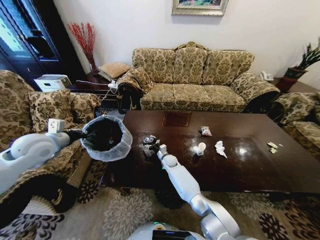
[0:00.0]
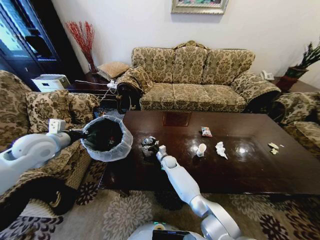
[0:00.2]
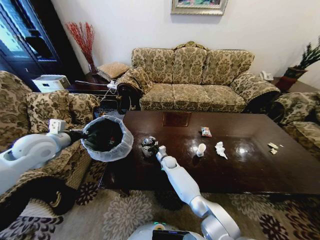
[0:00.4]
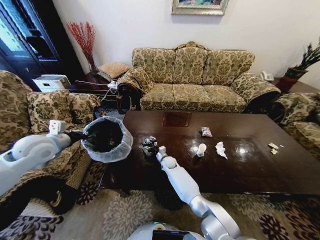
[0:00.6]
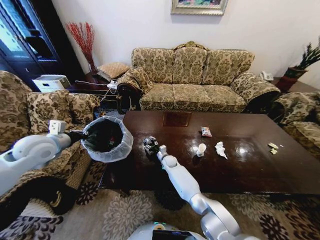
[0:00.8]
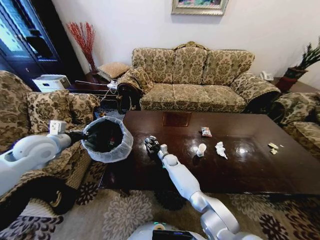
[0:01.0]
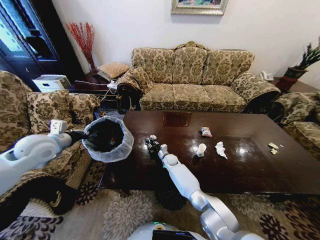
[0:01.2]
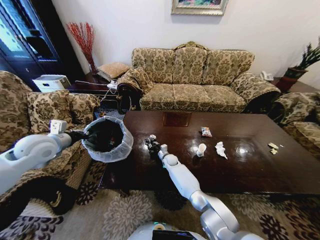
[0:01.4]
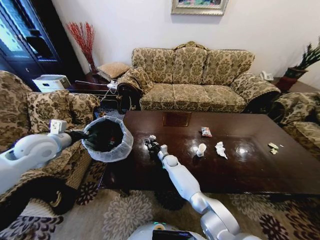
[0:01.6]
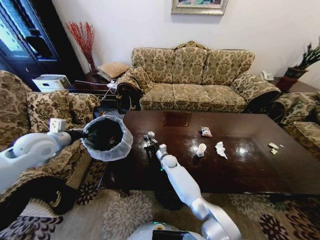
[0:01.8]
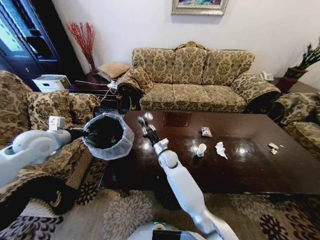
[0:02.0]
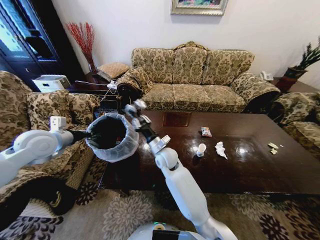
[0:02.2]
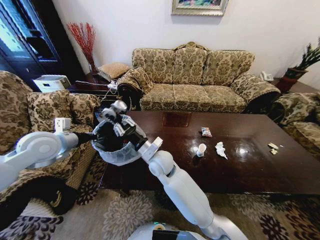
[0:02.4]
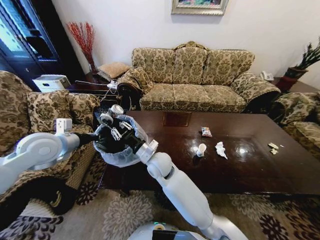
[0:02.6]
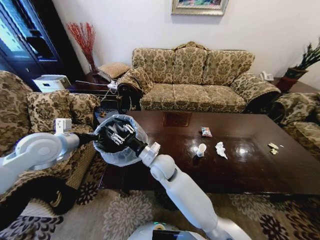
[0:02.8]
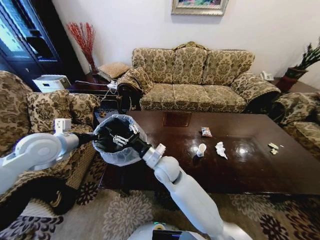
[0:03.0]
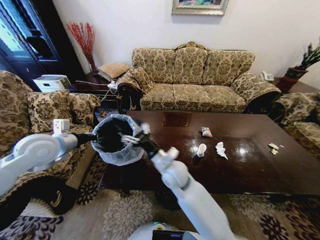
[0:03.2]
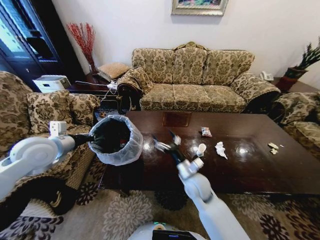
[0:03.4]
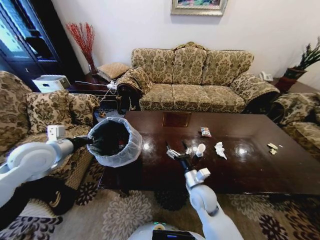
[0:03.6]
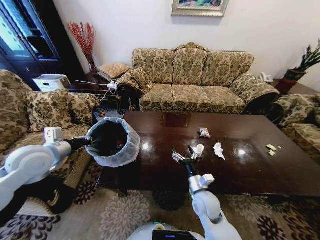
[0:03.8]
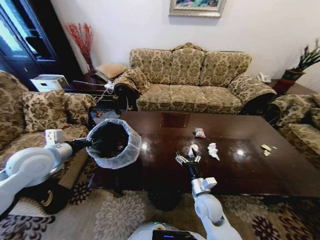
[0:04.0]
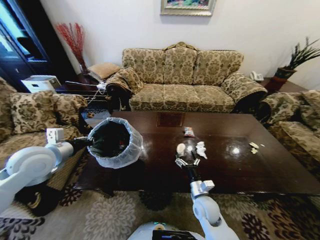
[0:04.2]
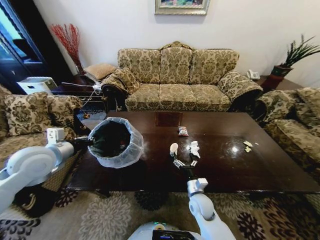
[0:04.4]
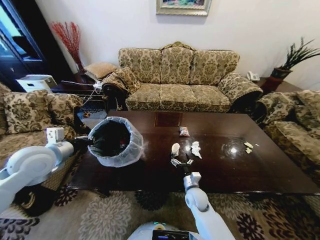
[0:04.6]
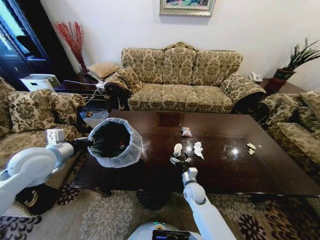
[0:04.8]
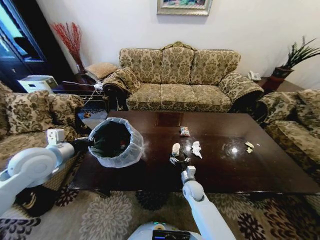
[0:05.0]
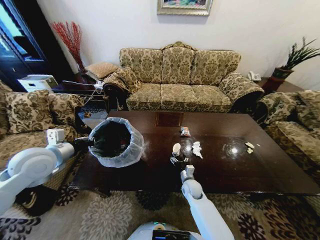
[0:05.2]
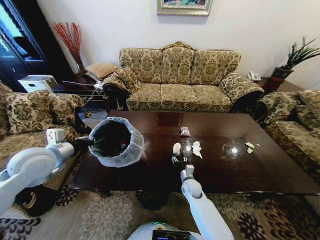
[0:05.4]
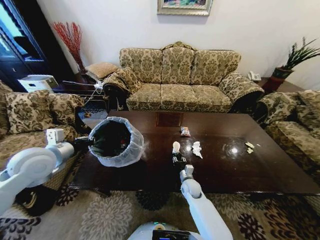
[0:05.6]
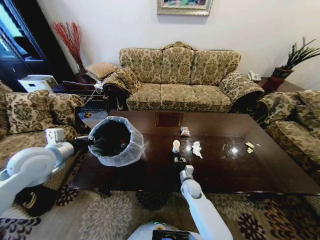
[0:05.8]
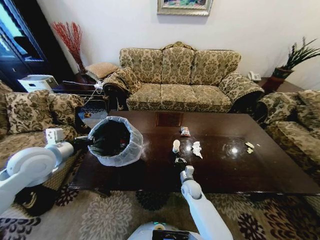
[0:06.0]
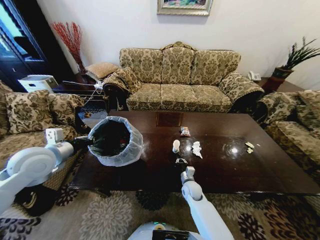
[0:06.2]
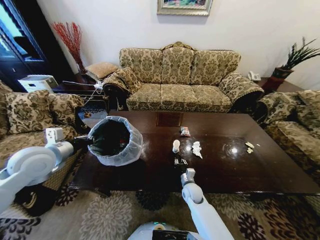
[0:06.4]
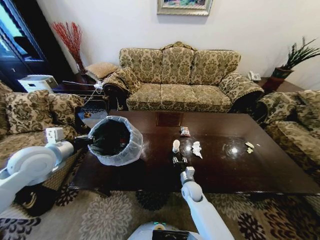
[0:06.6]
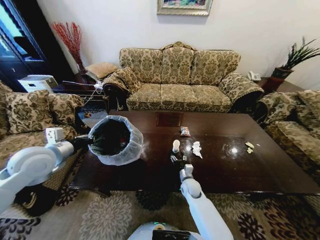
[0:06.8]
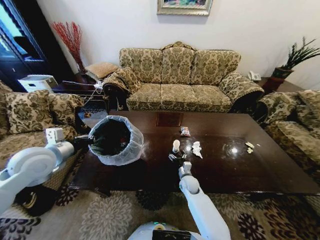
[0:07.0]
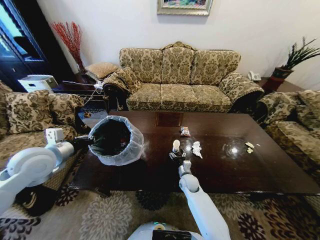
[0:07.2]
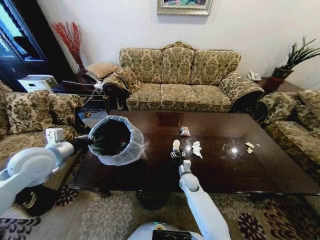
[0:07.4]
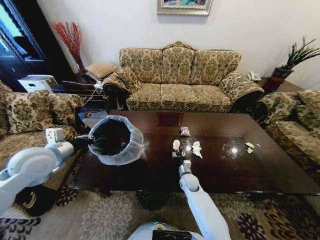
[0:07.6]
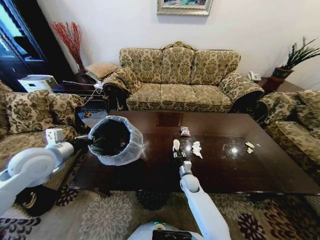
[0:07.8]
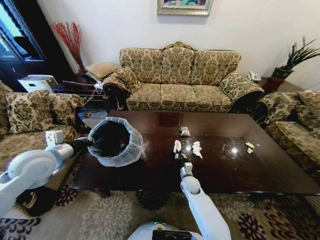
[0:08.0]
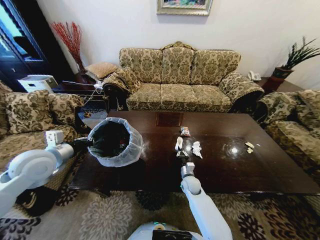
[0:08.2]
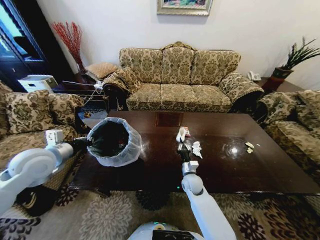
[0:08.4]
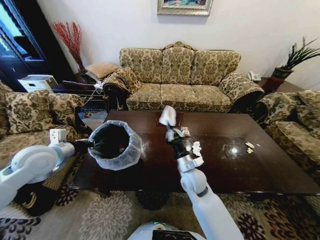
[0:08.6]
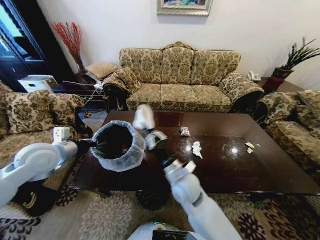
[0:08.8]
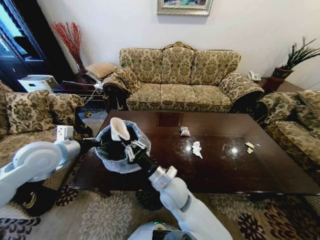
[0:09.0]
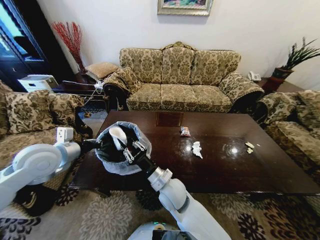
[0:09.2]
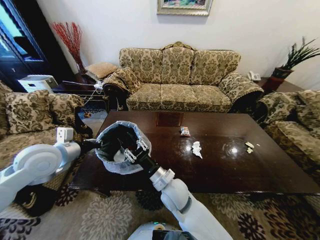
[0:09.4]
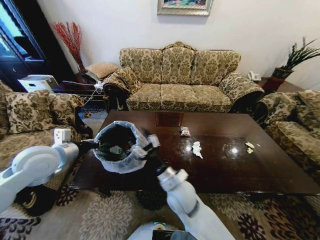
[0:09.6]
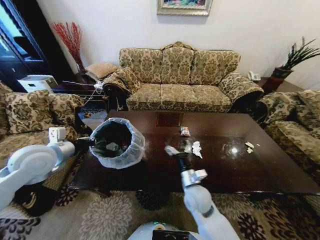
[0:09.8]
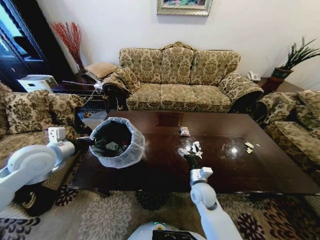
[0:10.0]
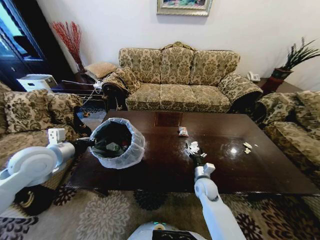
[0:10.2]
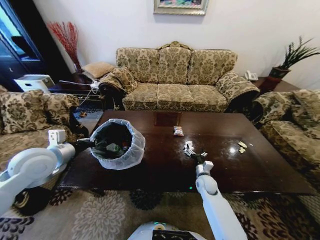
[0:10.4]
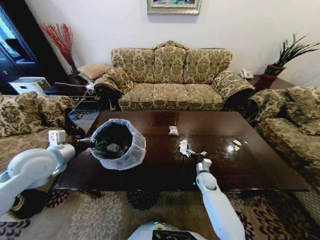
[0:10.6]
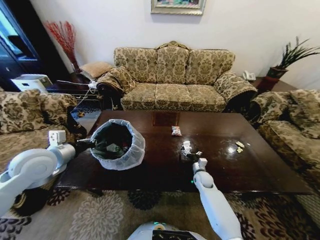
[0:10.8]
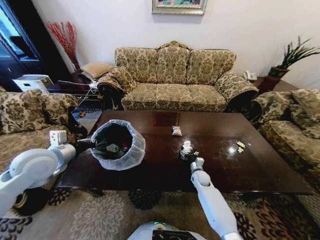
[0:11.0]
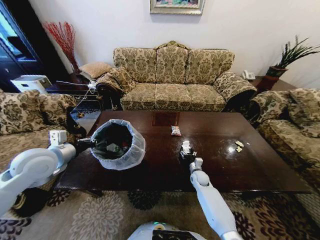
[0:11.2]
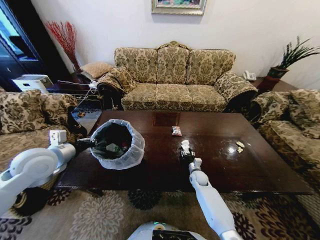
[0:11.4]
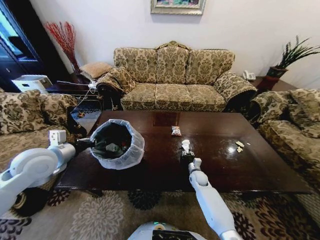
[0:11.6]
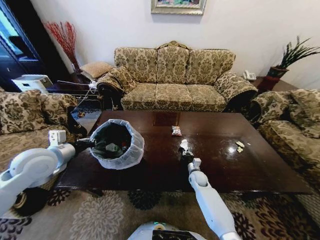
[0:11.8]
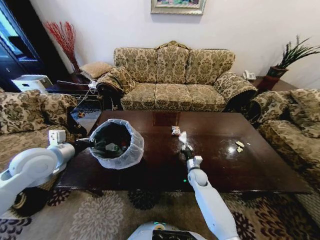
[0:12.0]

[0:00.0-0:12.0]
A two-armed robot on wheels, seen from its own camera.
Task of the whole recording: Move to the front of the table and place the trash on the table into the trash bin.
0:00.0 to 0:01.6: The right gripper closes.
0:01.6 to 0:03.0: The right gripper moves upward and backward, approximately 30 cm, and opens its fingers. Meanwhile the left gripper changes place by approximately 5 cm.
0:03.0 to 0:04.4: The right gripper is displaced downward, to the right and backward by approximately 25 cm, and opens up.
0:04.4 to 0:06.0: The right gripper shifts some 10 cm forward, and closes up.
0:06.0 to 0:07.6: The right gripper opens its fingers.
0:07.6 to 0:09.0: The right gripper moves upward, to the left and backward, approximately 25 cm, and closes up.
0:09.0 to 0:10.4: The right gripper goes about 30 cm to the right, downward and forward, and opens up.
0:10.4 to 0:12.0: The right gripper moves approximately 5 cm, and closes.

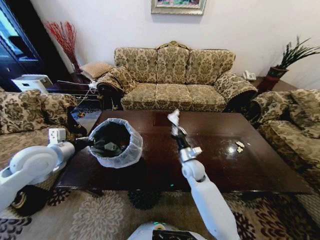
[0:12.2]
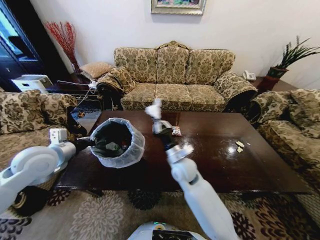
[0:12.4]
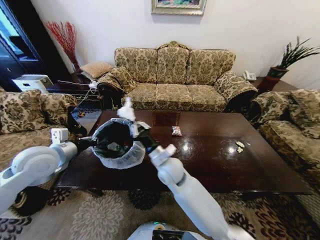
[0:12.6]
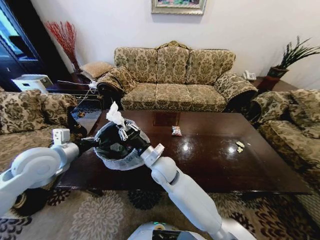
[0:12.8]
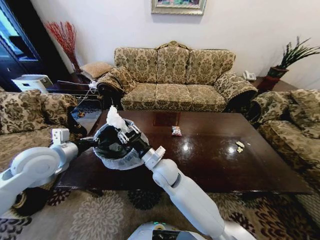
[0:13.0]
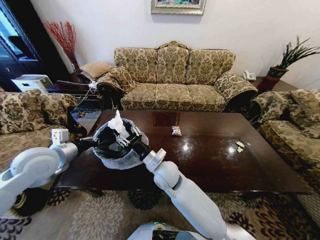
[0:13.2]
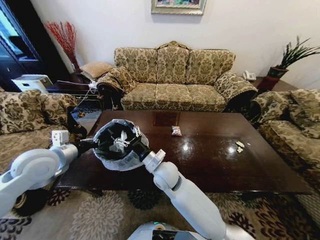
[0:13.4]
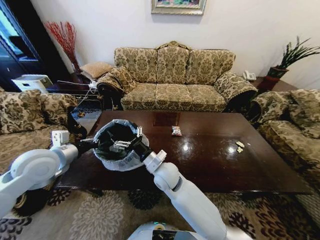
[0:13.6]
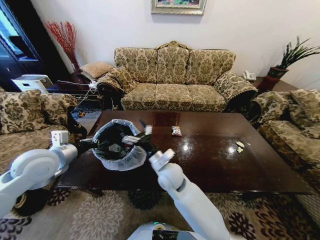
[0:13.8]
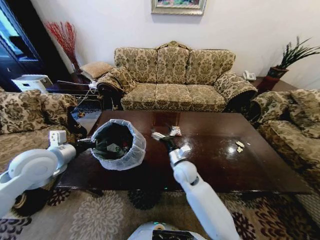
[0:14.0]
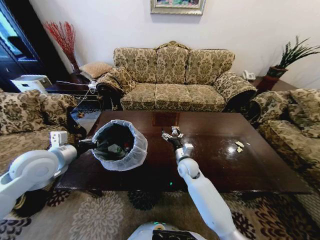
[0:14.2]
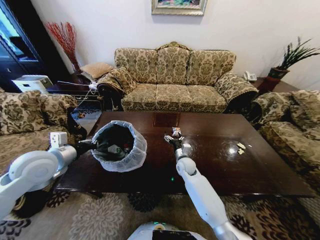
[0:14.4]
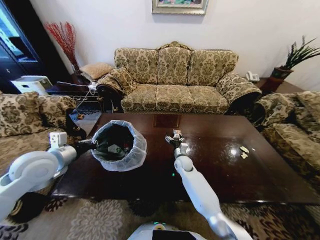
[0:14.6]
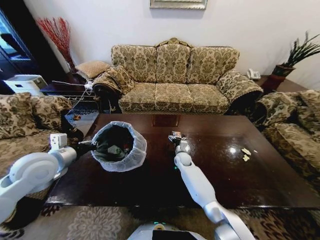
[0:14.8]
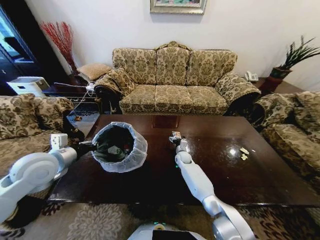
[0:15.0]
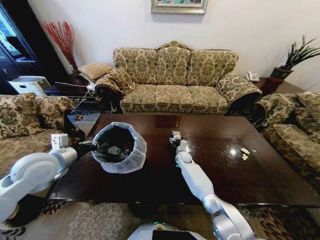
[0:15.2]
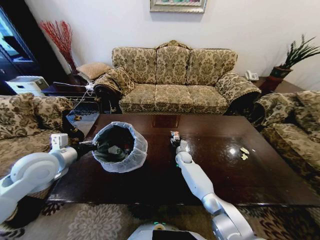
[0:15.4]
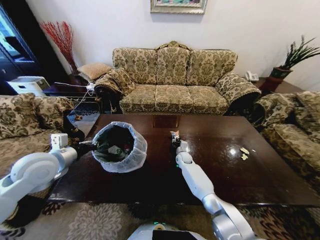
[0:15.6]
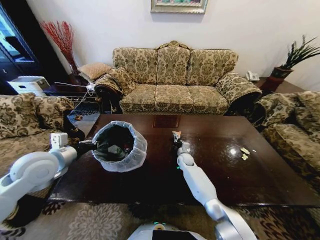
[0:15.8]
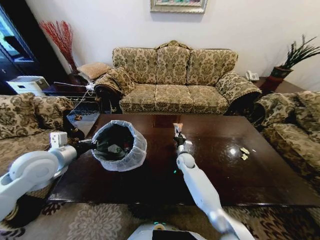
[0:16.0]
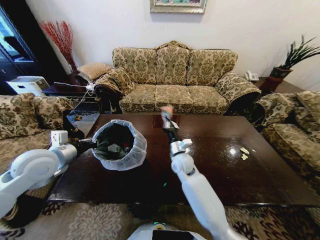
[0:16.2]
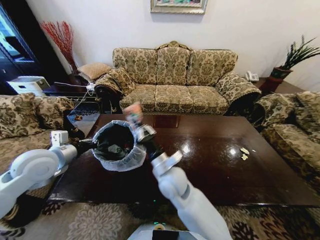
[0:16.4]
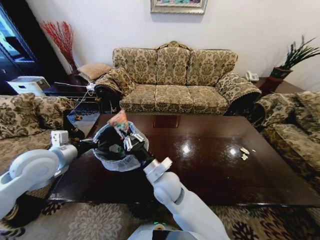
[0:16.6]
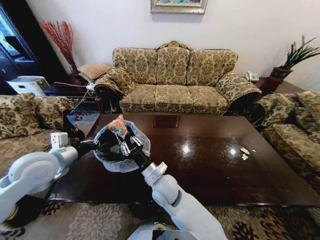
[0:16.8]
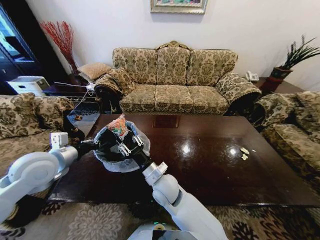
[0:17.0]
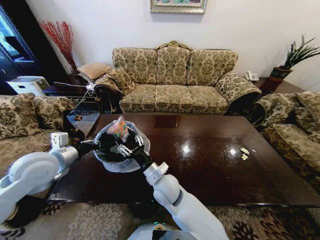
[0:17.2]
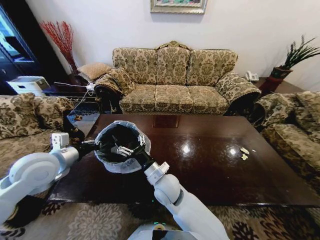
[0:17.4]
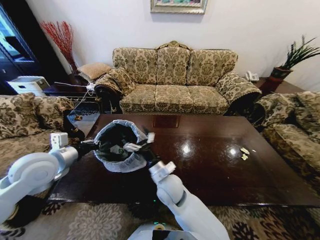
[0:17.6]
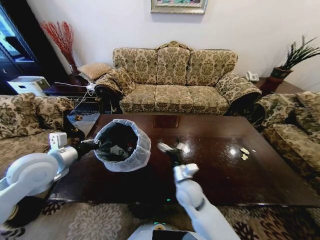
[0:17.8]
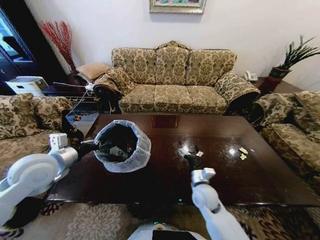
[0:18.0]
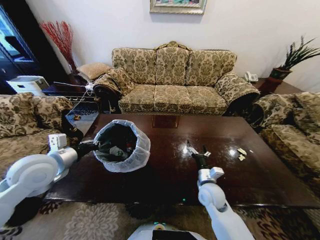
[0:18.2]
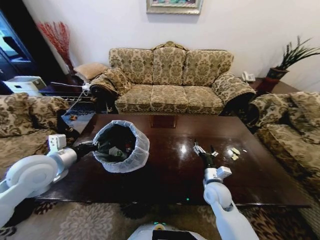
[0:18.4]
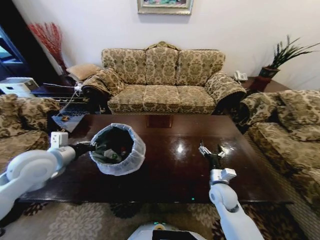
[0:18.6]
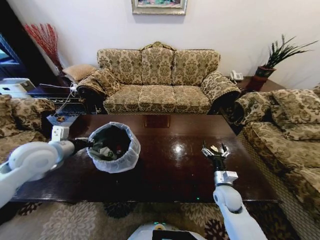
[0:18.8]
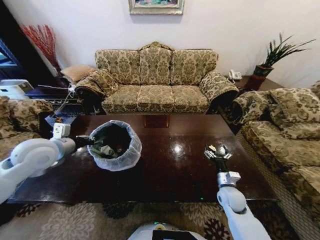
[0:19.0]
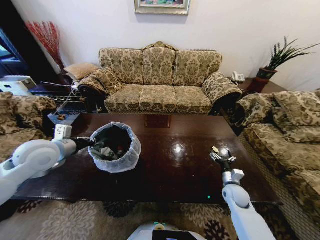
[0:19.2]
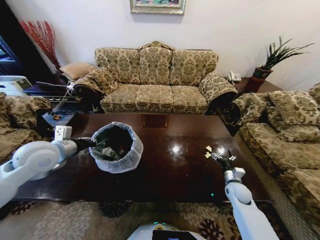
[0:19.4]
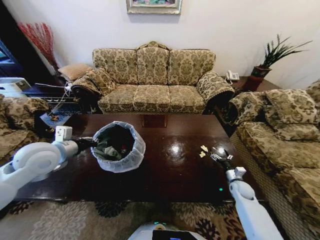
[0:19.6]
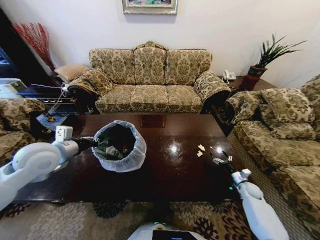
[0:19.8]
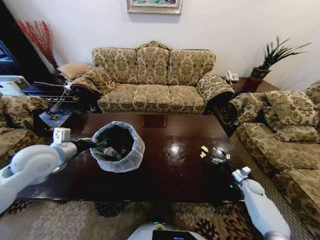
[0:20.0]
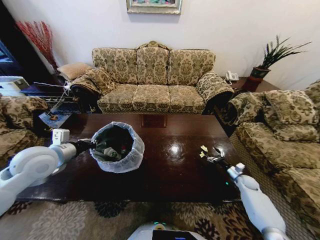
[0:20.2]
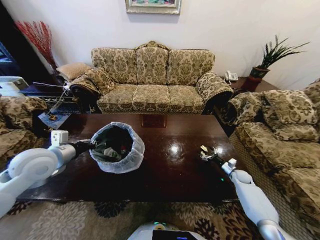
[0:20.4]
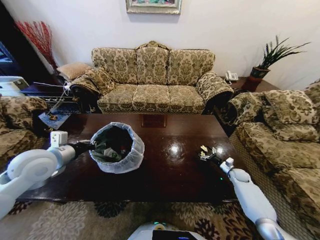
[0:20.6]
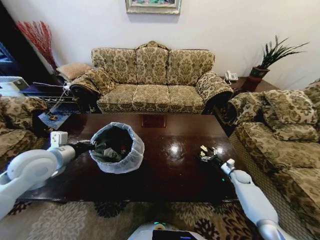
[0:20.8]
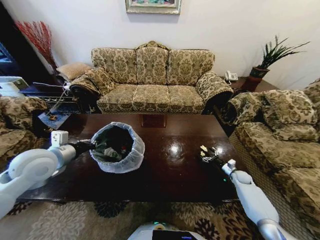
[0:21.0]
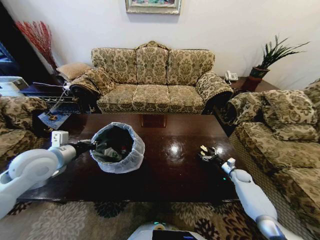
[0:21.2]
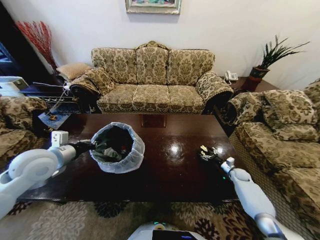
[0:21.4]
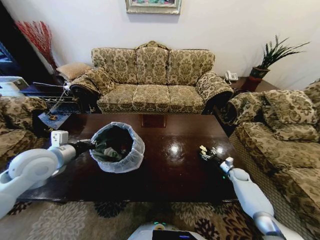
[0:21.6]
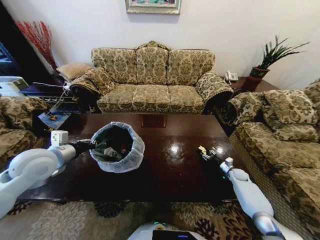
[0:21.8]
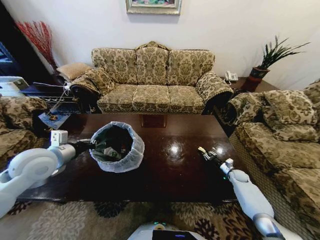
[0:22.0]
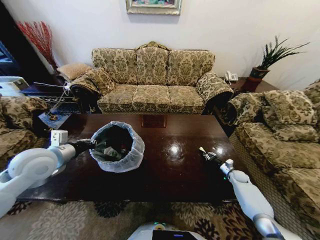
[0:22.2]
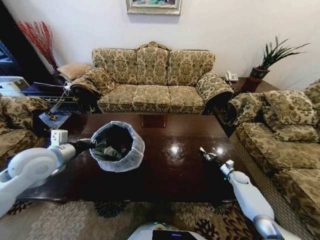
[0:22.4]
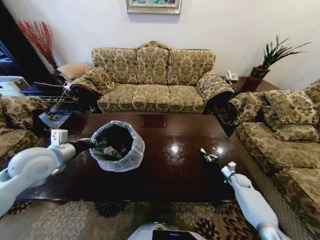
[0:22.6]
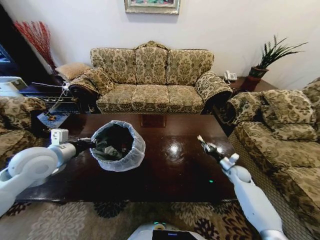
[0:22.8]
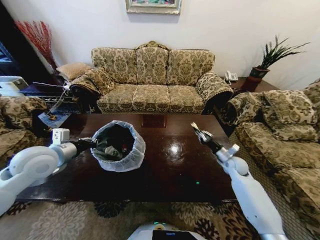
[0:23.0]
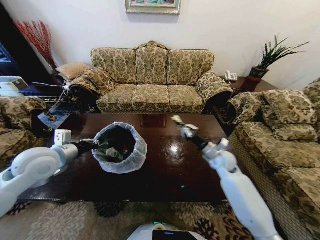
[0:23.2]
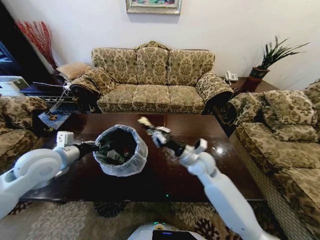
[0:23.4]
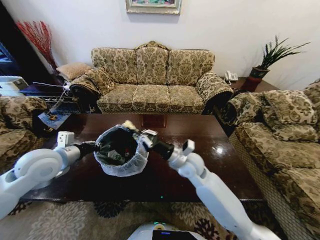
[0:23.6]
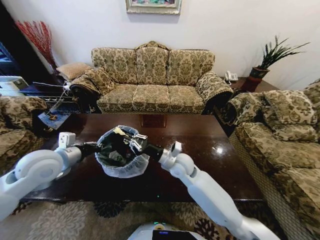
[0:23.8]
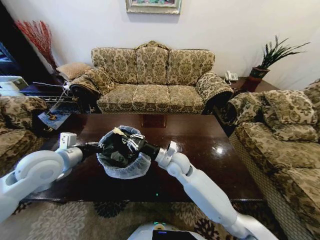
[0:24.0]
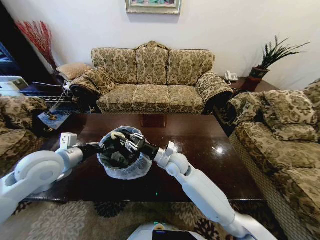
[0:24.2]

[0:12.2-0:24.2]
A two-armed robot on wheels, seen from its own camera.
Task of the whole recording: Move to the front of the table and place the trash on the table into the trash bin.
0:12.2 to 0:13.8: The right gripper is displaced to the left, upward and backward by approximately 15 cm, and opens its fingers.
0:13.8 to 0:15.2: The right gripper moves forward, downward and to the right, roughly 30 cm.
0:15.2 to 0:16.6: The right gripper heads backward, upward and to the left, covering some 35 cm, and closes its fingers.
0:16.6 to 0:18.2: The right gripper travels to the right and downward by about 20 cm, and opens its fingers.
0:18.2 to 0:19.8: The right gripper heads to the right and downward, covering roughly 35 cm.
0:19.8 to 0:21.2: The right gripper goes about 5 cm forward.
0:21.2 to 0:22.6: The right gripper closes.
0:22.6 to 0:24.2: The right gripper moves to the left and upward, roughly 50 cm.
